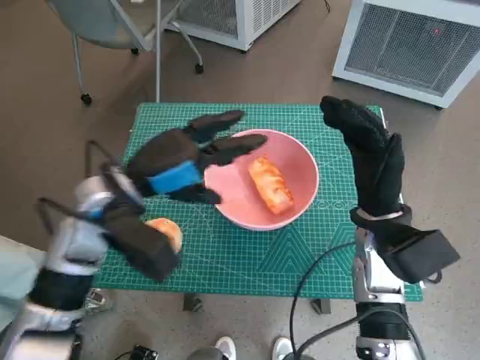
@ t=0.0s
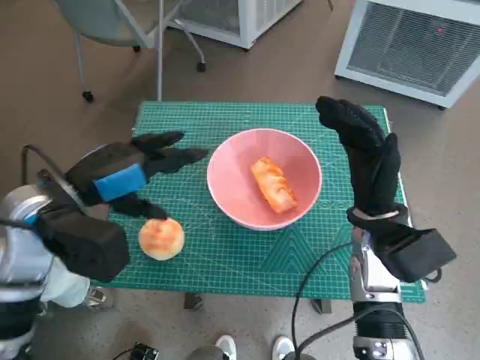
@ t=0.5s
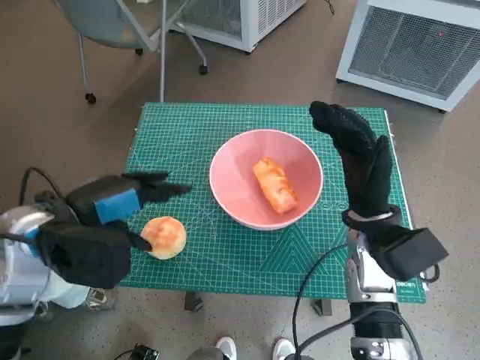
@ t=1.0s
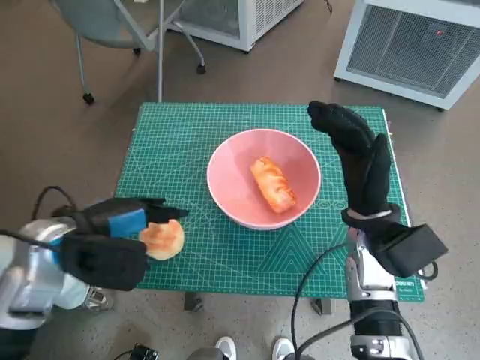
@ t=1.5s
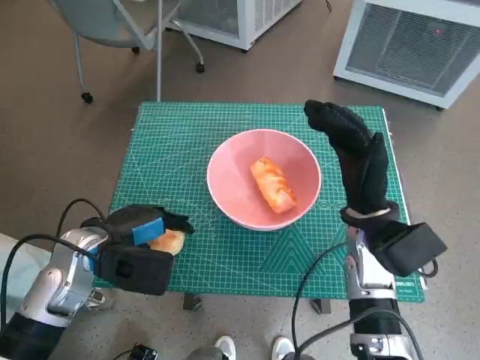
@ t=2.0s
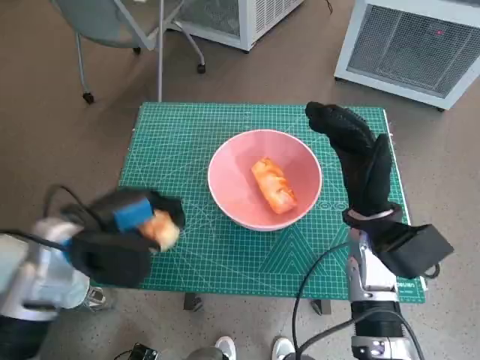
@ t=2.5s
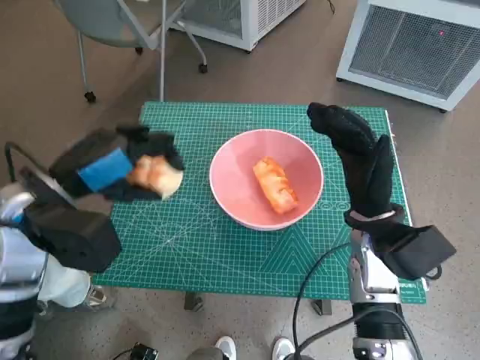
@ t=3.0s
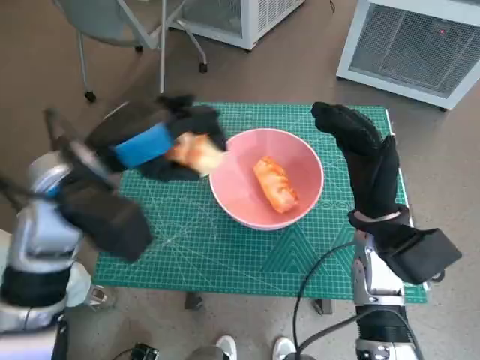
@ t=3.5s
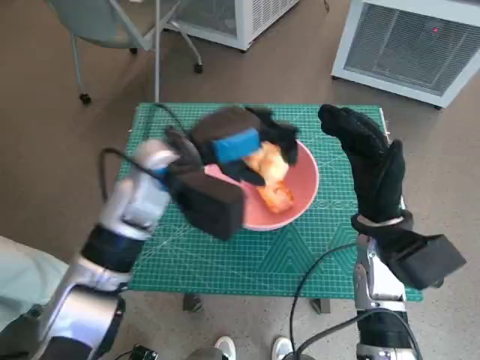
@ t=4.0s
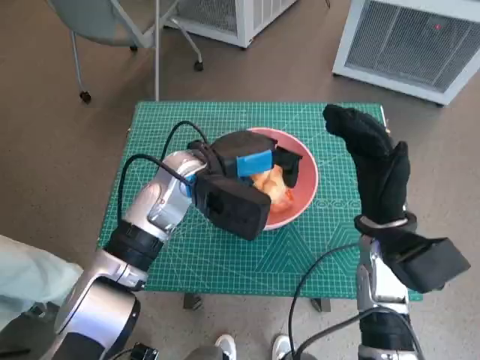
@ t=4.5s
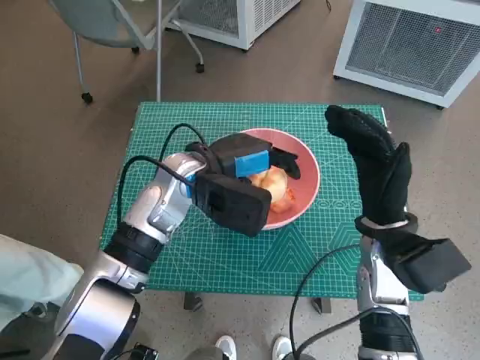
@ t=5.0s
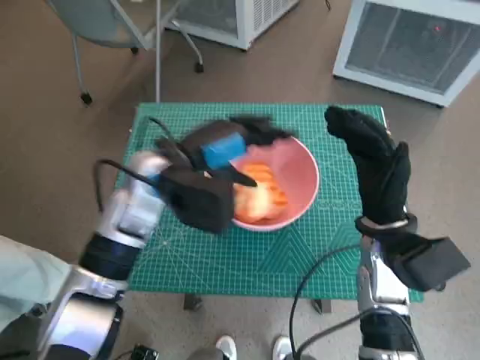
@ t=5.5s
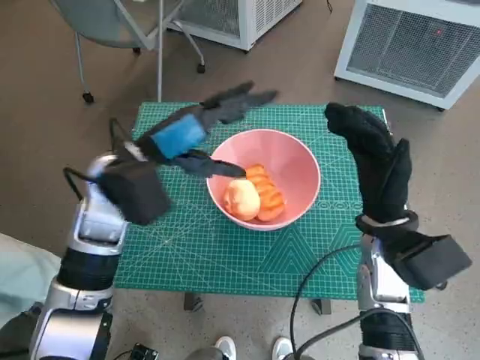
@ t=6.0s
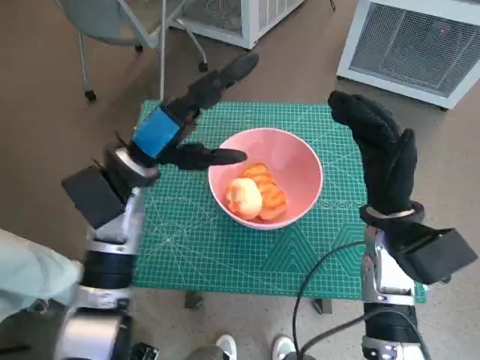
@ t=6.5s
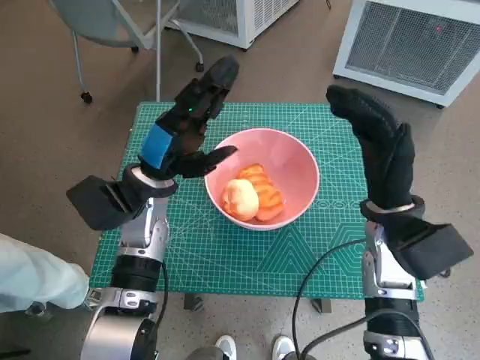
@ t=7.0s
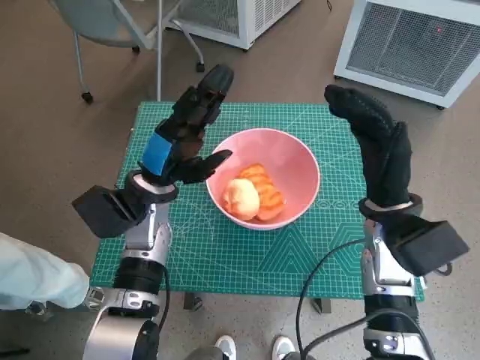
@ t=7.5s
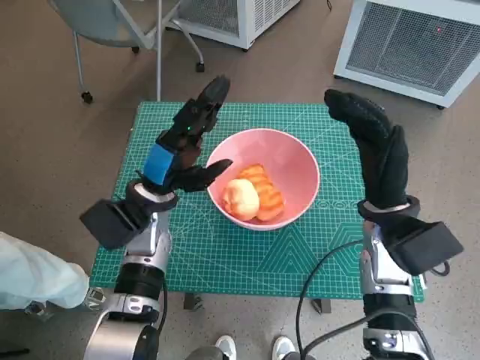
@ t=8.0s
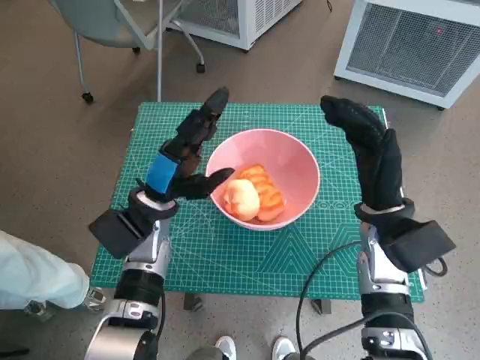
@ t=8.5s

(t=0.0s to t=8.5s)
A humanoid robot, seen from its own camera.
Task of the whole recording: Push the bowl into the center of the table and put the bread into the bowl.
Step, t=0.0s - t=1.5s: Grasp the round bread with left hand.
Step, t=2.0s - t=5.0s: Place the round bread in pink bowl with left hand.
t=0.0s - t=2.0s: The left hand shifts some 10 cm downward and to the left.
t=2.0s - t=4.0s: The left hand travels to the right, upward and forward by some 15 cm.
t=4.0s - t=6.5s: The left hand is displaced to the left by about 5 cm.
t=6.5s - t=8.5s: The left hand moves downward, roughly 10 cm.
